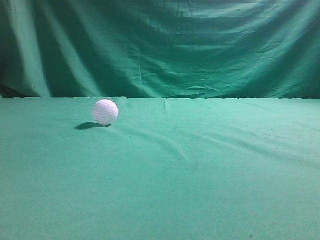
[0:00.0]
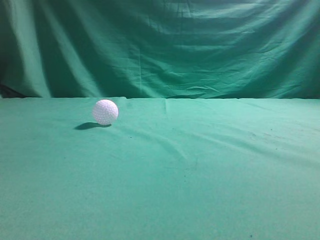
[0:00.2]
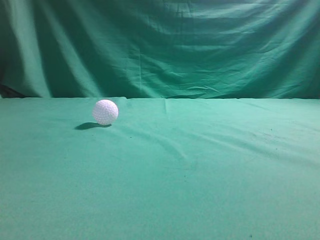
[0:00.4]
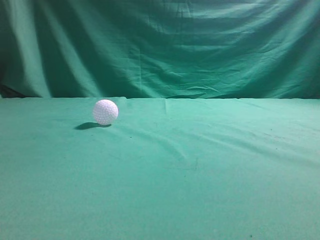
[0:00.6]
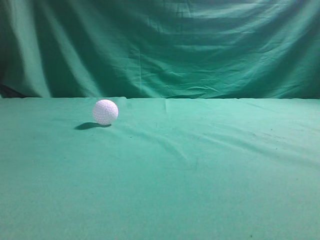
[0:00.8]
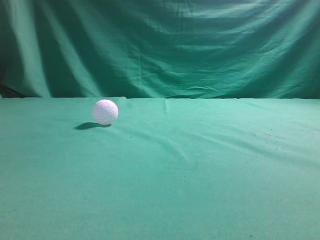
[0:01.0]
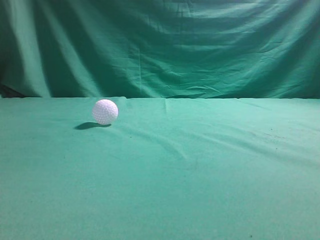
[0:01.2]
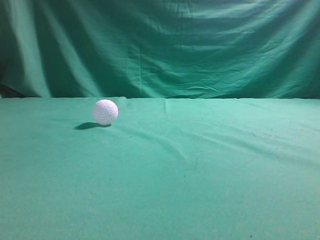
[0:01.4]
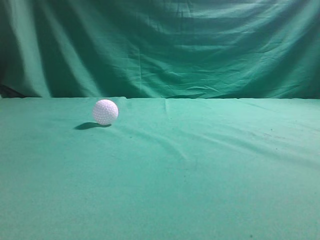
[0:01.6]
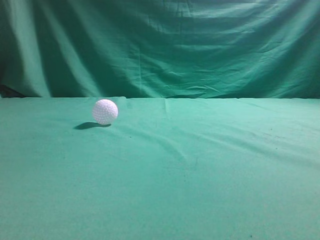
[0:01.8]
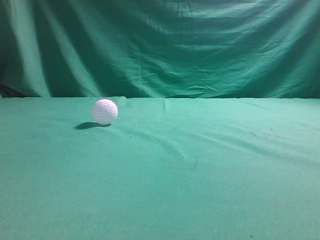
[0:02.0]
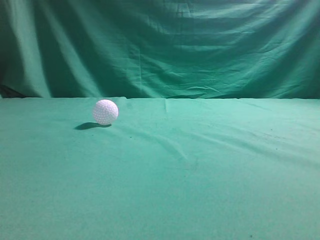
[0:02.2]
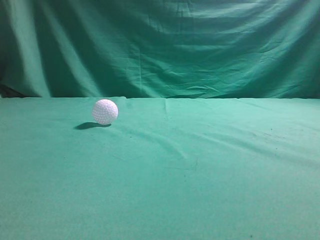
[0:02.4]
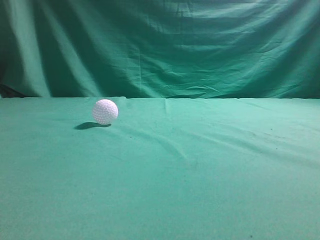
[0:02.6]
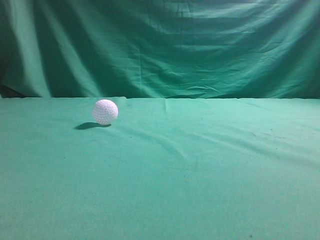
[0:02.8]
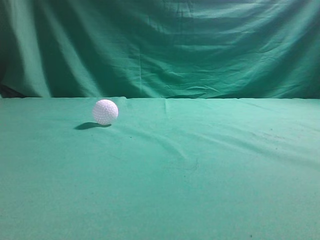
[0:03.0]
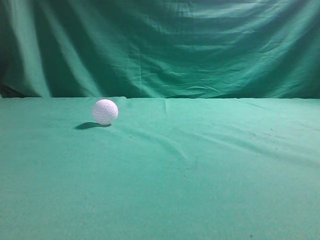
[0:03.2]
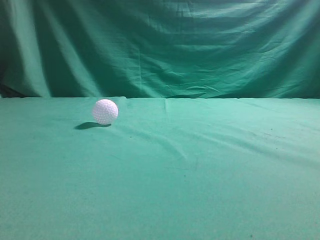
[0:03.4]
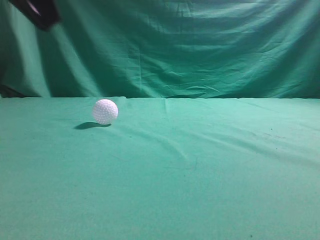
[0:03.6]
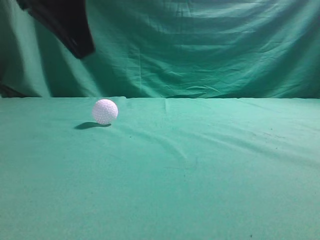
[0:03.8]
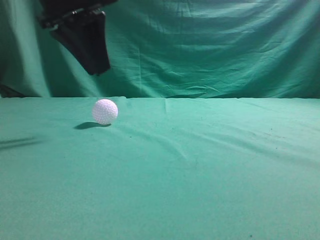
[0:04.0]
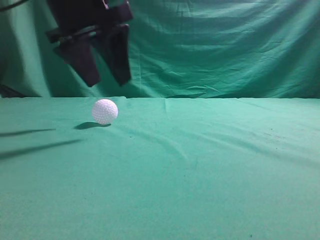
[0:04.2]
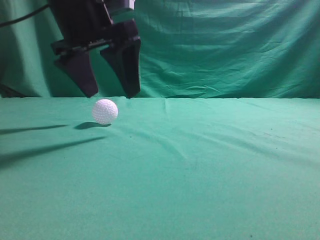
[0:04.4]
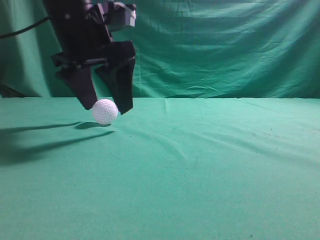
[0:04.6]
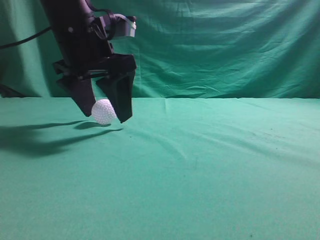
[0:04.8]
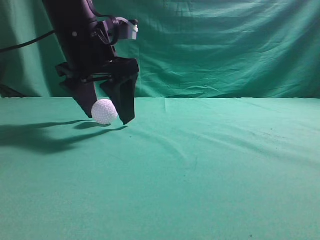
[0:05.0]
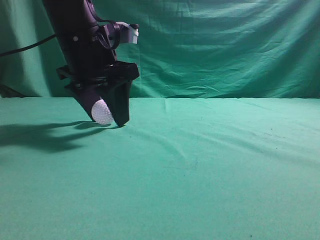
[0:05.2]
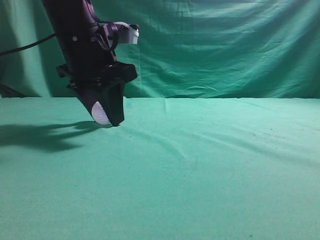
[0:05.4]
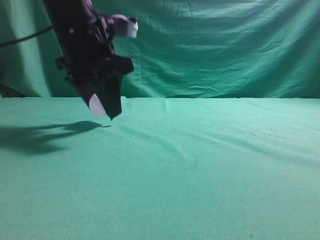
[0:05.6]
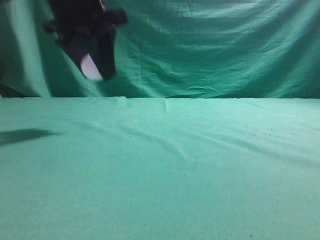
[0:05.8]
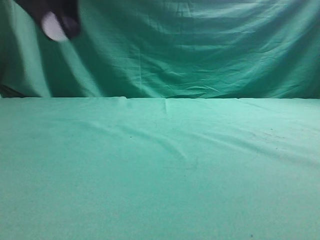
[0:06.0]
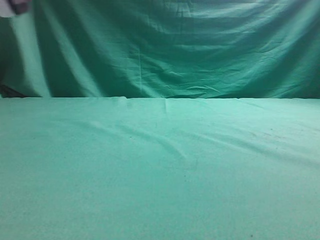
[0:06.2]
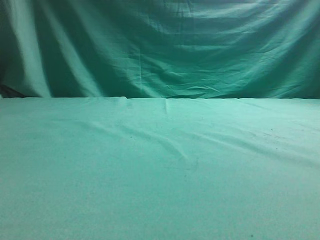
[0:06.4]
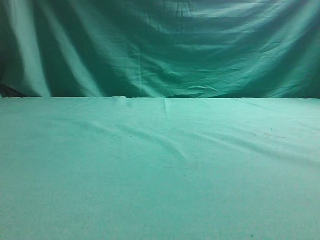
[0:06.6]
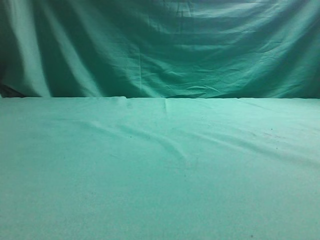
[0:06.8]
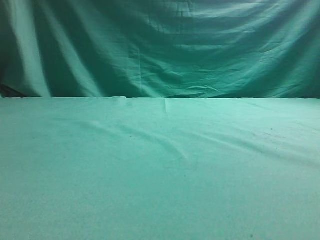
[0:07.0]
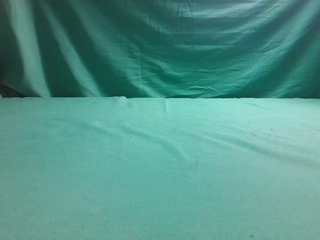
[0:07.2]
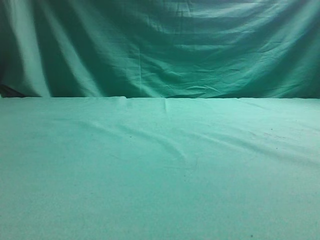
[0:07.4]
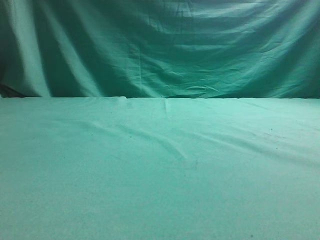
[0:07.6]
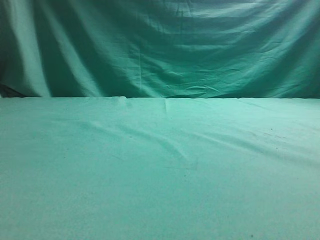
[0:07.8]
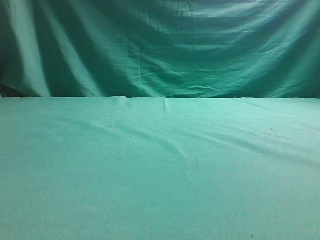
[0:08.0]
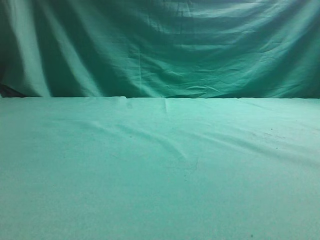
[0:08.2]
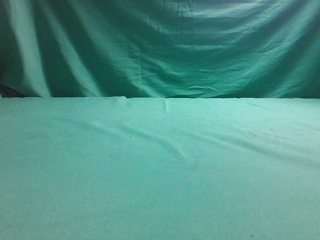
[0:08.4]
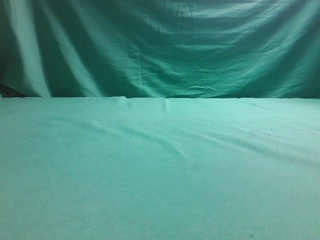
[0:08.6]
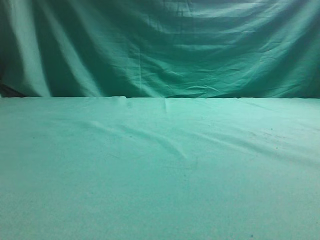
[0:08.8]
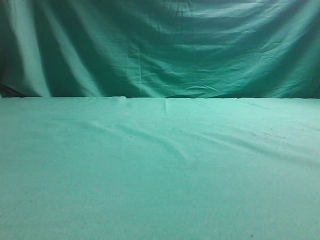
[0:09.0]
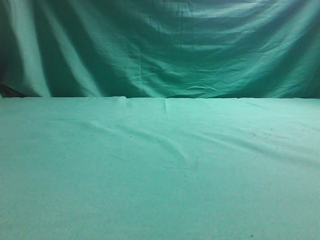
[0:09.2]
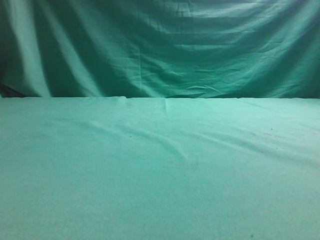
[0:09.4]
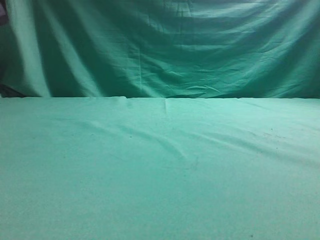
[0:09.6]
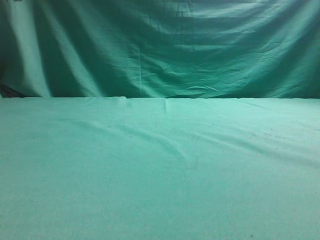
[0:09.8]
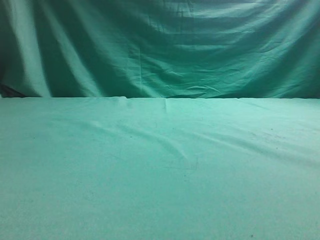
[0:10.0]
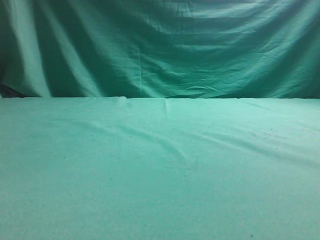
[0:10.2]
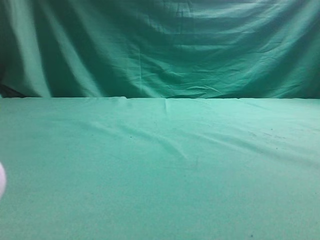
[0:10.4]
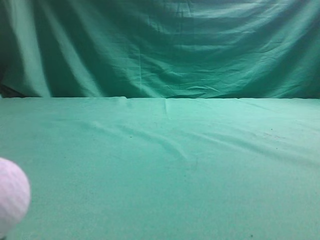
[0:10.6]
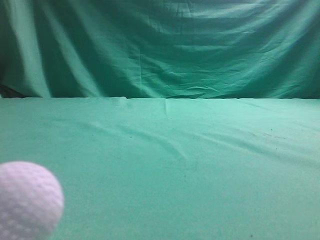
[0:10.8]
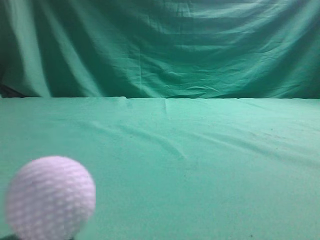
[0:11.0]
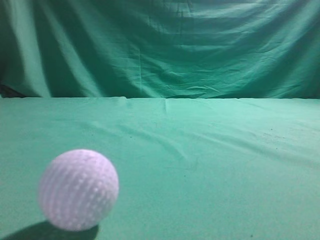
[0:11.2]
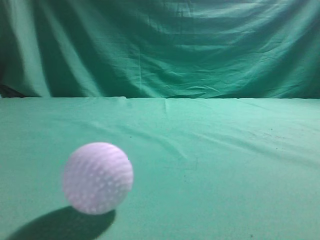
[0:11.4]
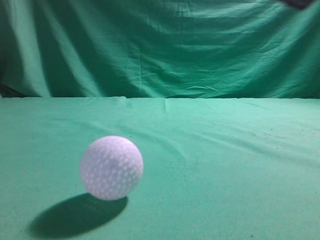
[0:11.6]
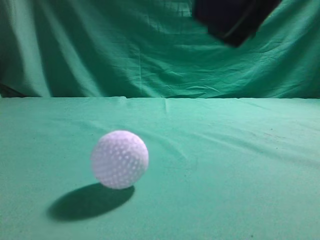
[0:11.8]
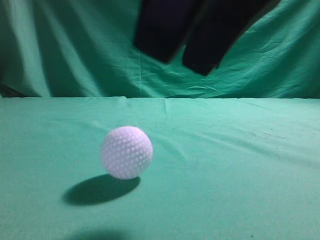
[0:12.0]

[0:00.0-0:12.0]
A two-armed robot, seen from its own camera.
Task of the whole recording: pick up the ball and place it on the plate, then pick up the ball from the plate and put it in the center of the table.
Step, 0:00.0 to 0:05.6: Grab the spherical object with your left arm.
Step, 0:05.8 to 0:09.0: Place the sphere on the white object.
0:03.0 to 0:04.4: The left gripper moves forward and to the right, roughly 25 cm, and opens up.
0:04.4 to 0:06.0: The left gripper heads upward and to the left, covering approximately 10 cm, and closes its fingers.
0:06.0 to 0:07.6: The left gripper goes roughly 20 cm to the left.
0:10.4 to 0:12.0: The left gripper is displaced backward and downward by roughly 20 cm. The right gripper shifts approximately 20 cm to the left, and opens its fingers.

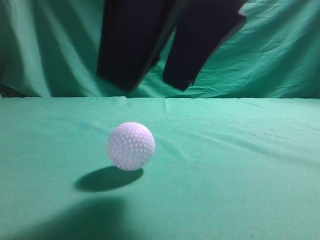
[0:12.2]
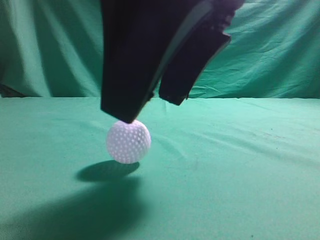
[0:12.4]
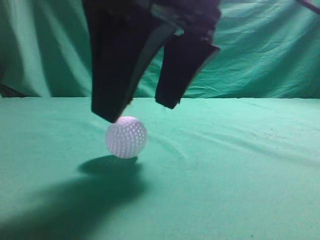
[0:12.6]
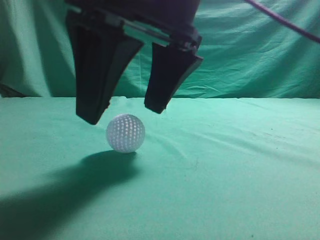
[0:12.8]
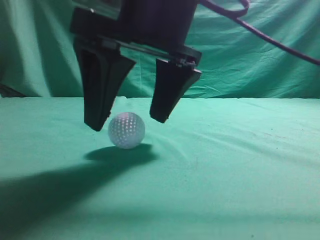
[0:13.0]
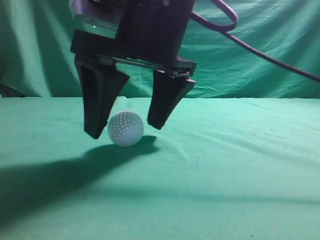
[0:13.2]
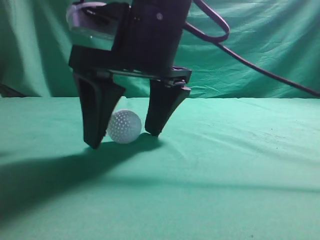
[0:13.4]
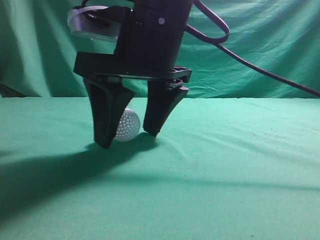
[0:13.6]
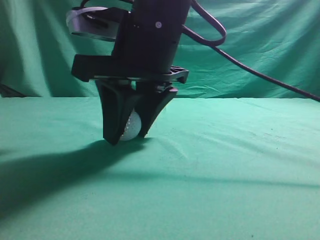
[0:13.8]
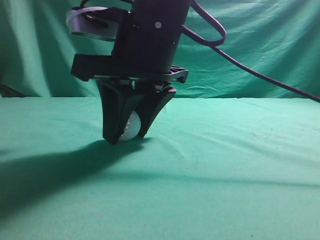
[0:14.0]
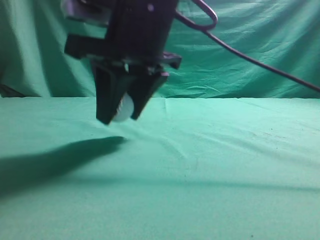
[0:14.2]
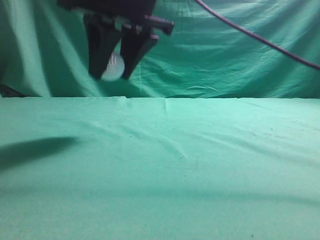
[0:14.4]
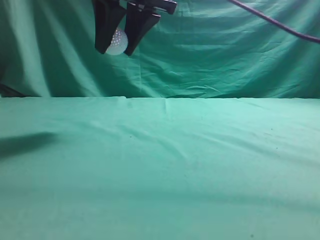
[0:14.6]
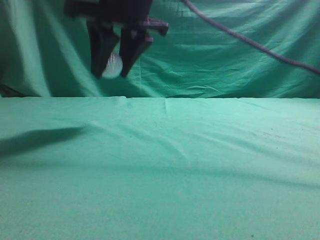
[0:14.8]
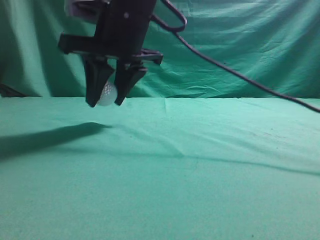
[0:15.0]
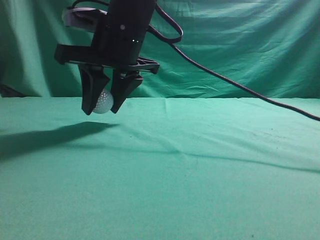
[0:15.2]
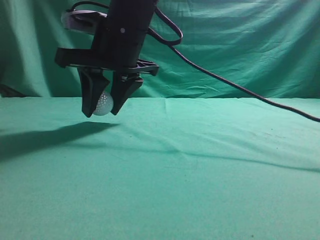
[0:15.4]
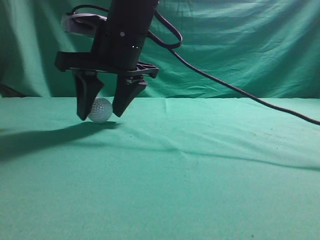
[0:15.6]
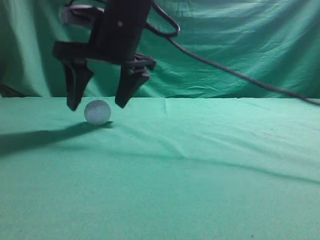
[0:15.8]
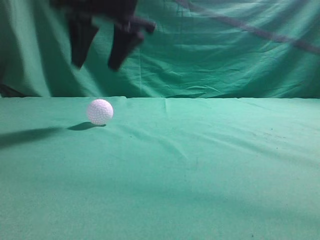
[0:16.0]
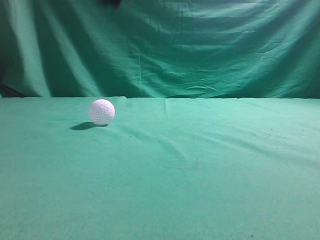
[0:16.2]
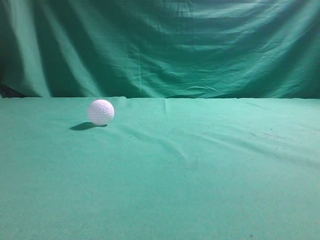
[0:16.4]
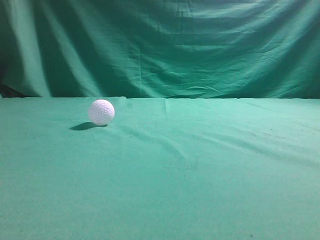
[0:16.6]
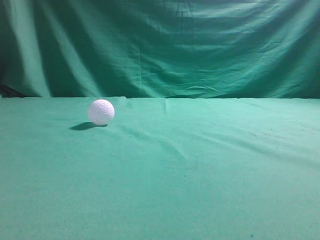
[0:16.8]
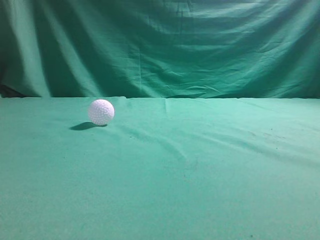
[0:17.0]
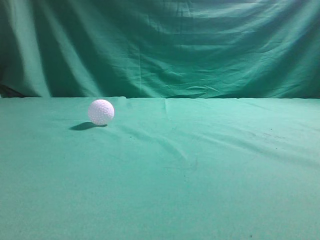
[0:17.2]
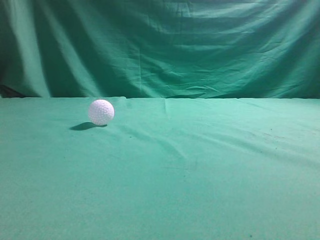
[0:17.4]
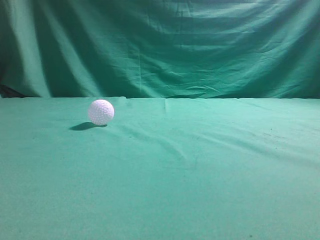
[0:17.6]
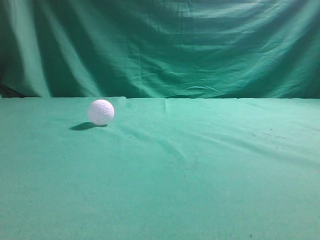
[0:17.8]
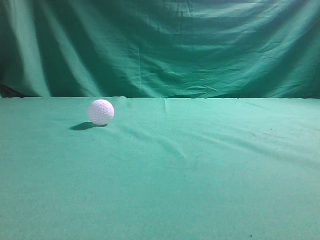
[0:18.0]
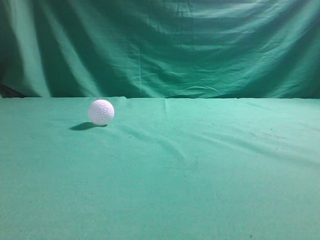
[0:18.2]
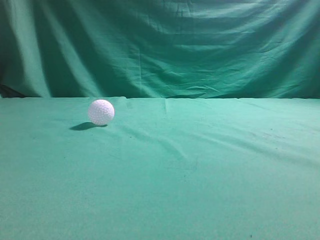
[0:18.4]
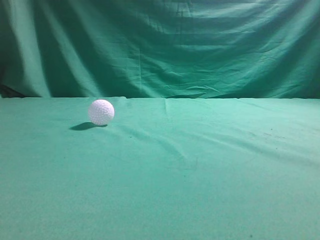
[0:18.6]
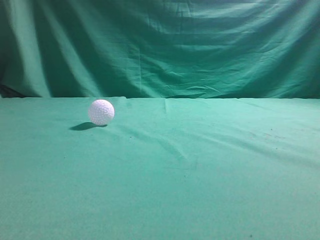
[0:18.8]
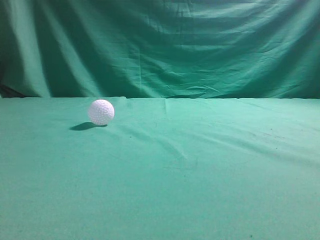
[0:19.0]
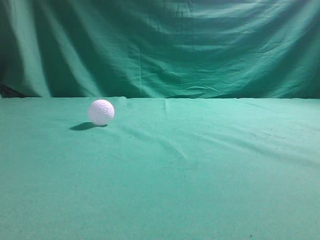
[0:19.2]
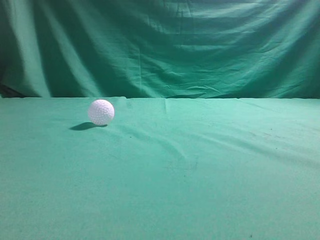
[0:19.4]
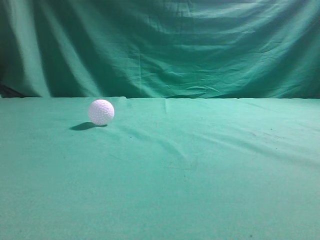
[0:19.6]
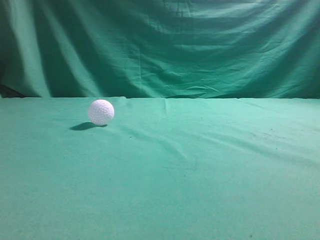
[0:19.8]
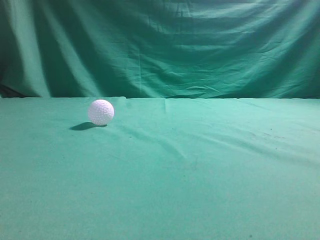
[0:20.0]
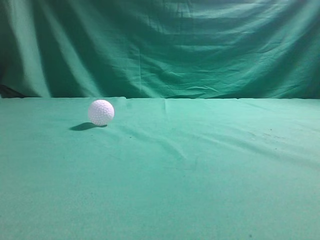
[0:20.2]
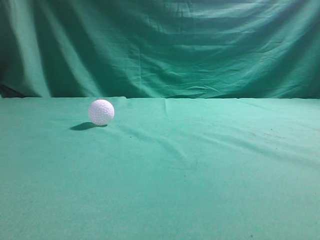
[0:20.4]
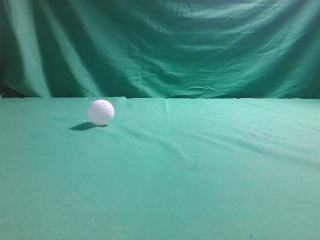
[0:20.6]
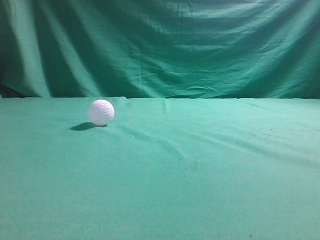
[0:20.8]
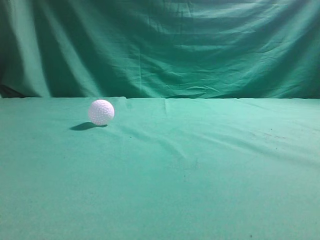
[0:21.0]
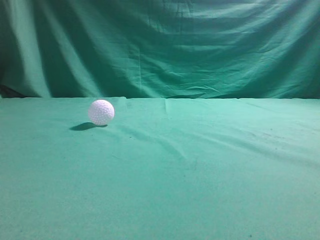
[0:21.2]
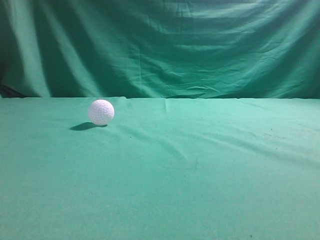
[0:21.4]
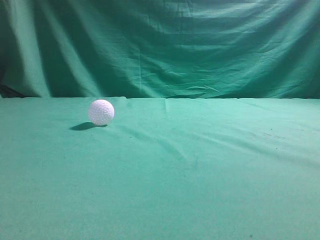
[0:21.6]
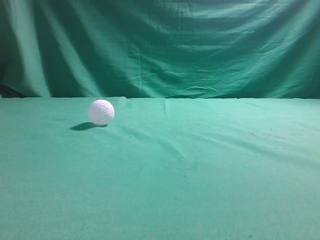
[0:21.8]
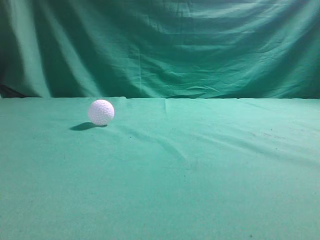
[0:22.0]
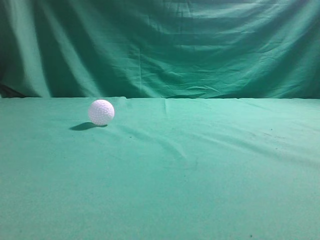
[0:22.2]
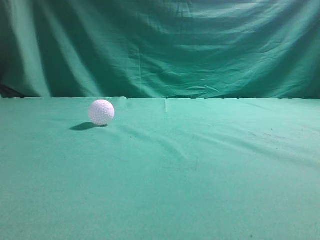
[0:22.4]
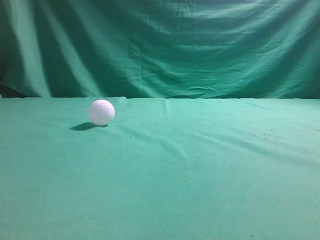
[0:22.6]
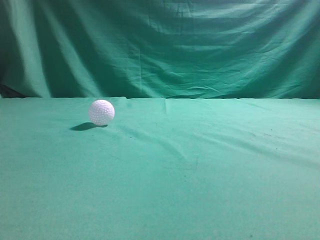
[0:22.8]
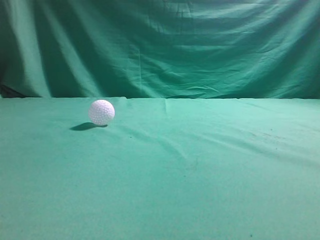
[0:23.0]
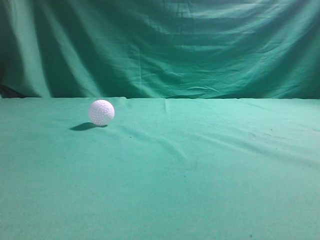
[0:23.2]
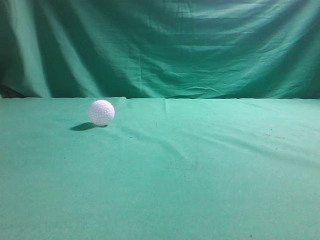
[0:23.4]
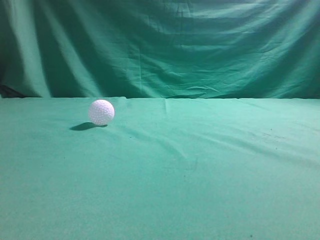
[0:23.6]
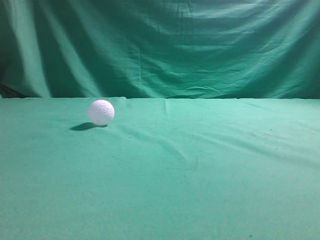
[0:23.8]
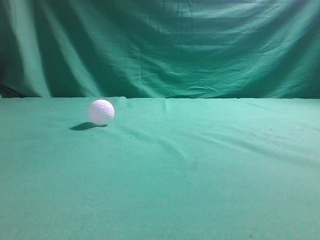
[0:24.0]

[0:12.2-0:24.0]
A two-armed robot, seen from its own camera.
Task of the whole recording: pick up the ball and place it on the plate, then pick up the ball from the plate and put it in the center of the table.
Step, 0:14.4 to 0:15.8: Put the picked-up object on the table.
0:12.2 to 0:13.6: The right gripper travels forward, to the left and downward by approximately 15 cm.
0:13.6 to 0:15.2: The right gripper shifts some 10 cm forward, travels upward and back again, some 10 cm each way, and closes up.
0:15.2 to 0:16.6: The right gripper is displaced upward by about 25 cm, and closes up.
0:18.2 to 0:19.6: Both grippers stay about where they are.
